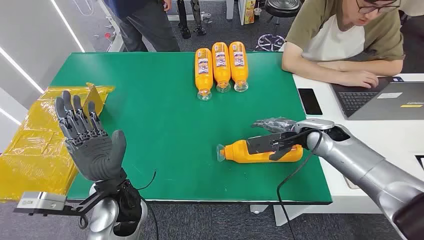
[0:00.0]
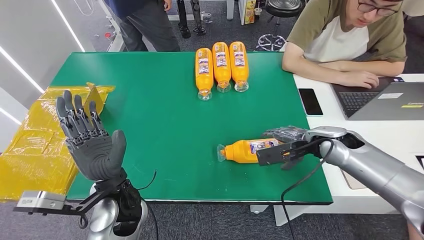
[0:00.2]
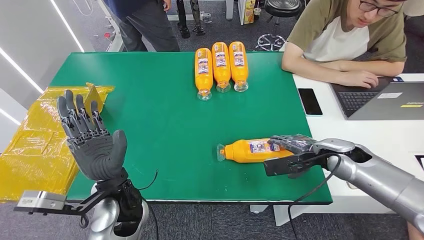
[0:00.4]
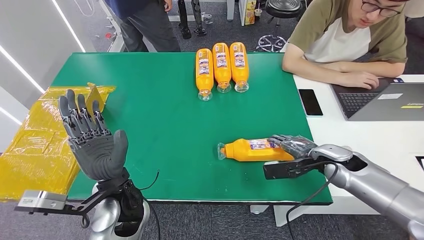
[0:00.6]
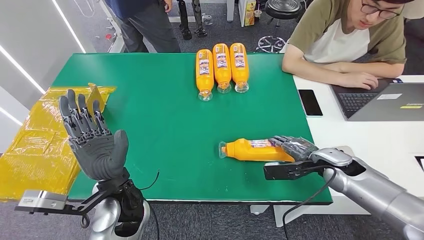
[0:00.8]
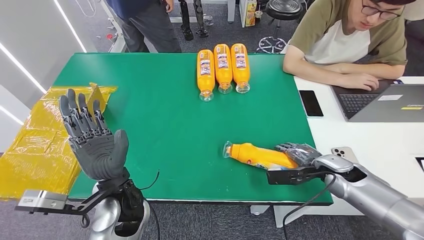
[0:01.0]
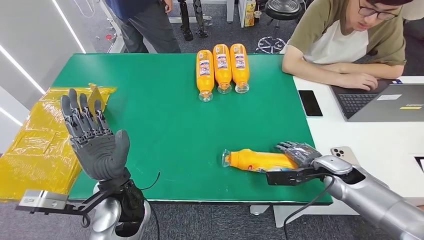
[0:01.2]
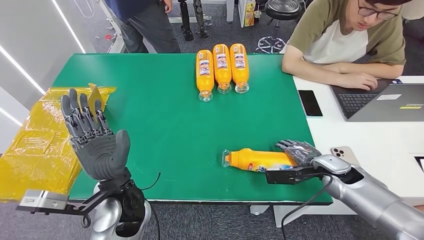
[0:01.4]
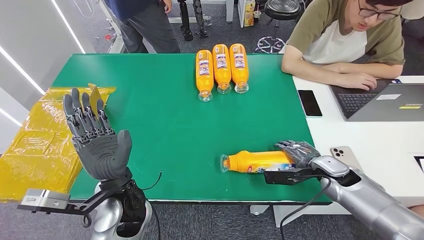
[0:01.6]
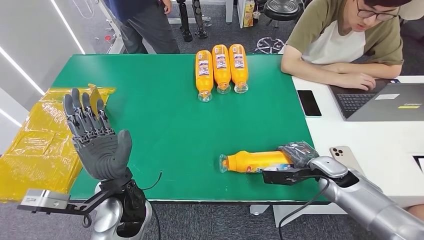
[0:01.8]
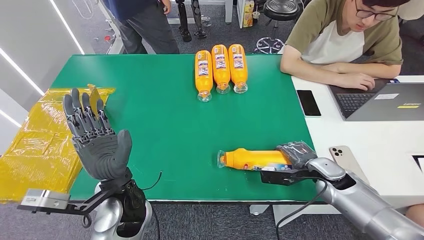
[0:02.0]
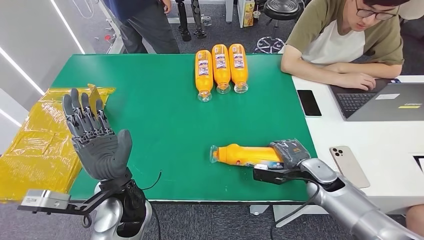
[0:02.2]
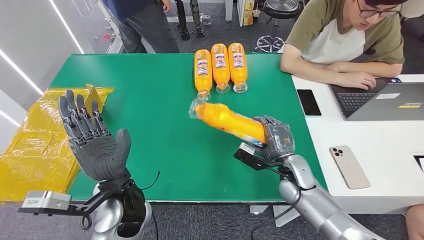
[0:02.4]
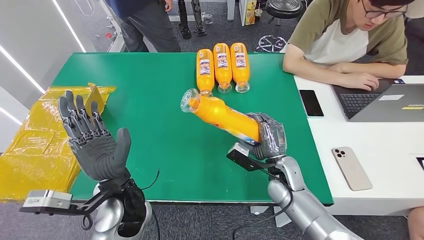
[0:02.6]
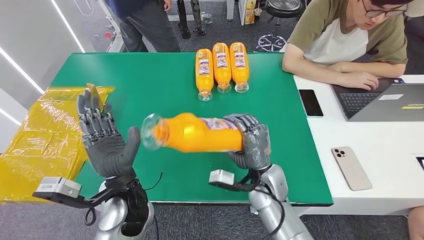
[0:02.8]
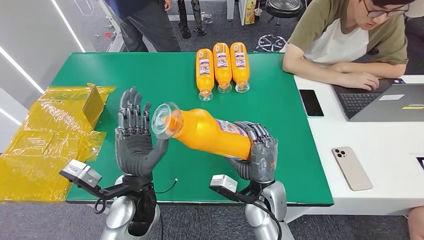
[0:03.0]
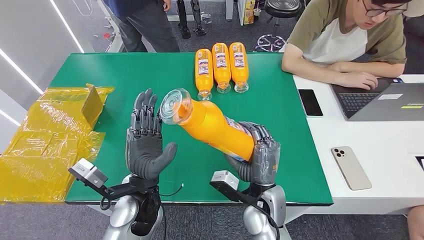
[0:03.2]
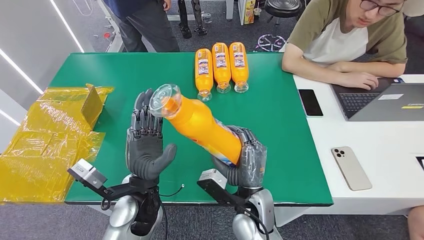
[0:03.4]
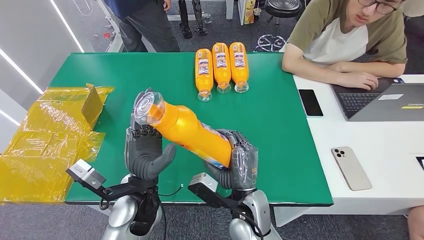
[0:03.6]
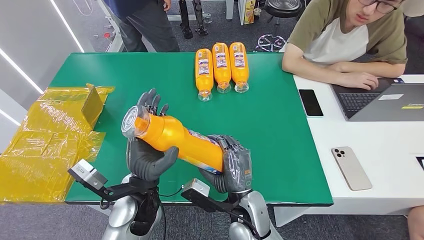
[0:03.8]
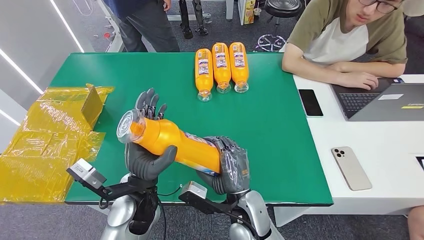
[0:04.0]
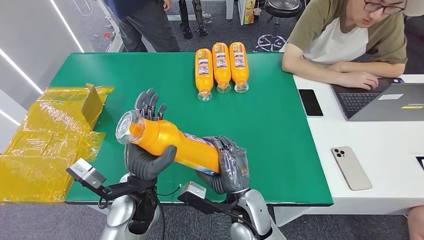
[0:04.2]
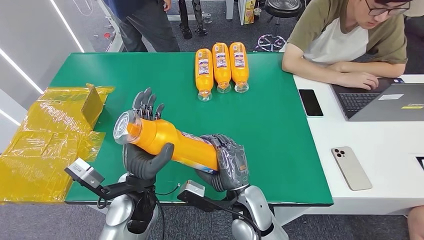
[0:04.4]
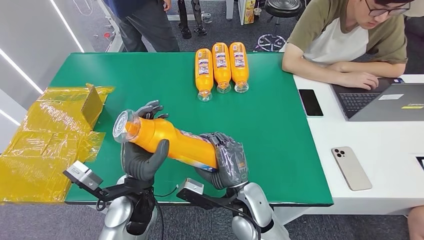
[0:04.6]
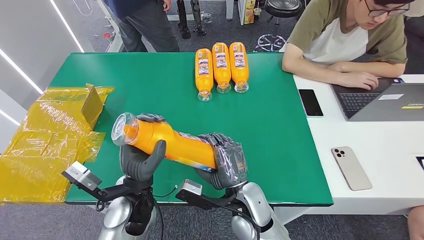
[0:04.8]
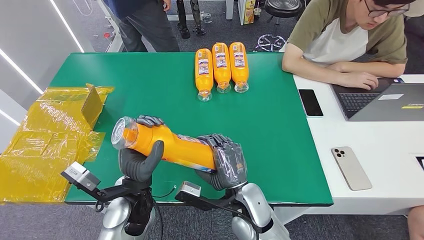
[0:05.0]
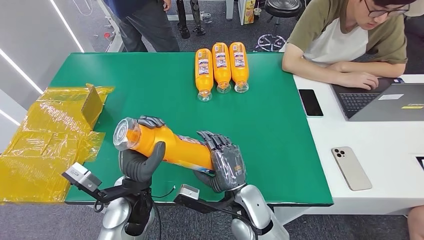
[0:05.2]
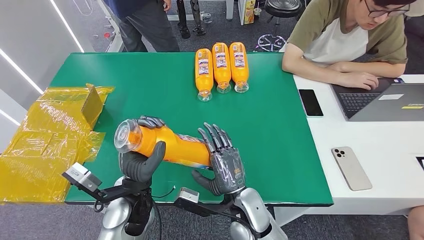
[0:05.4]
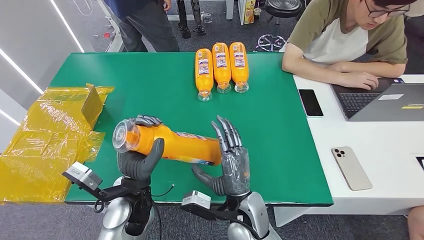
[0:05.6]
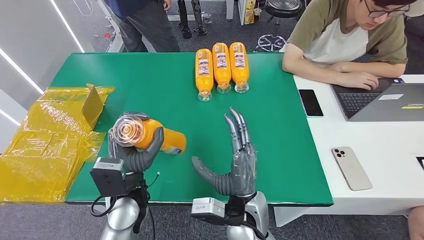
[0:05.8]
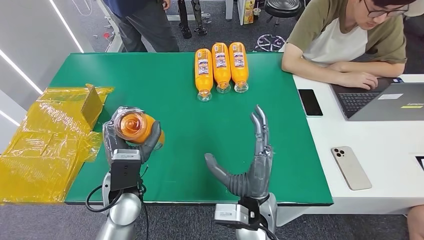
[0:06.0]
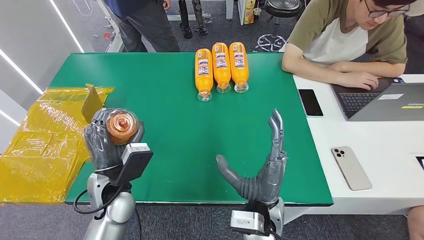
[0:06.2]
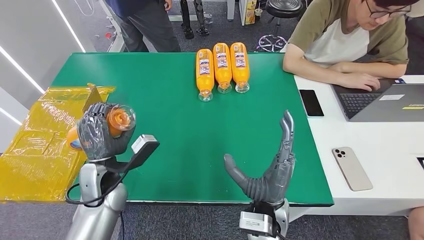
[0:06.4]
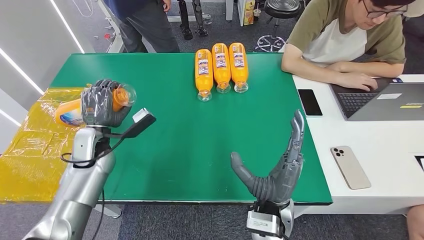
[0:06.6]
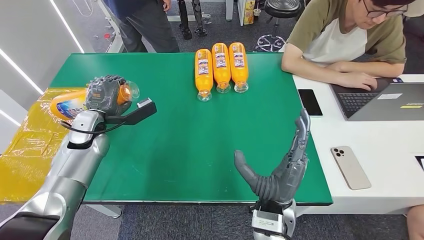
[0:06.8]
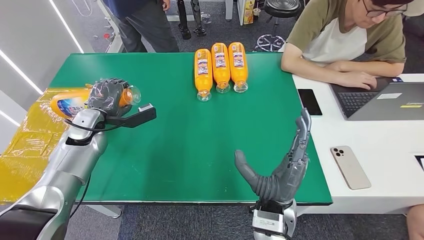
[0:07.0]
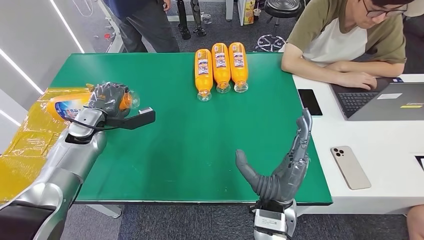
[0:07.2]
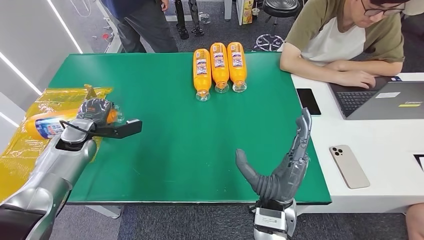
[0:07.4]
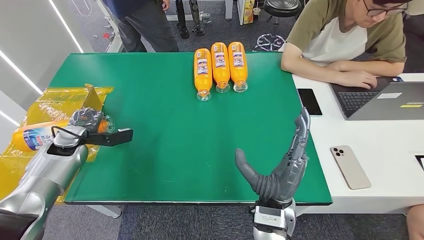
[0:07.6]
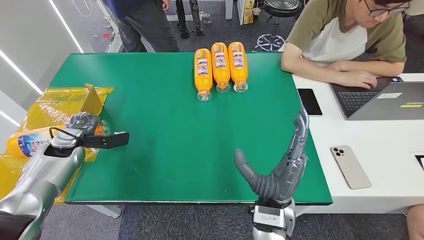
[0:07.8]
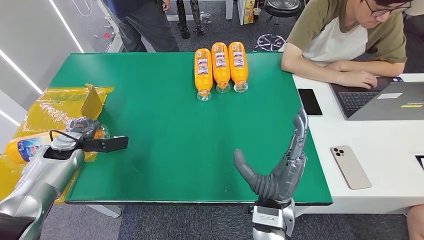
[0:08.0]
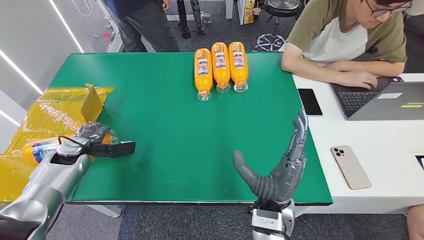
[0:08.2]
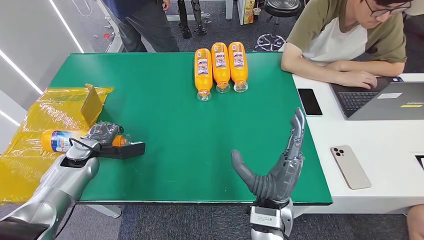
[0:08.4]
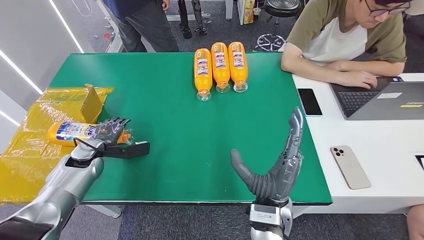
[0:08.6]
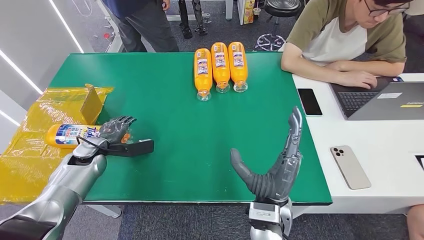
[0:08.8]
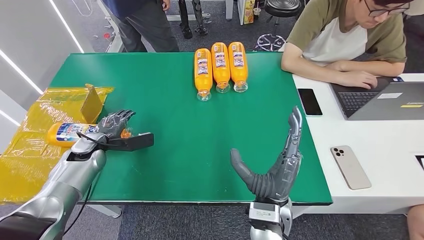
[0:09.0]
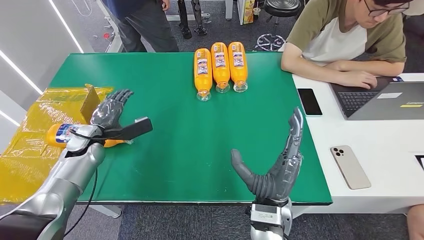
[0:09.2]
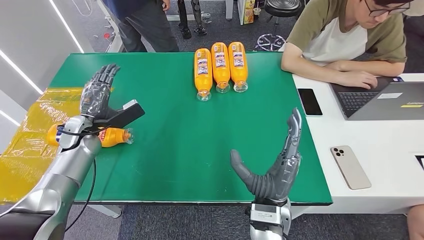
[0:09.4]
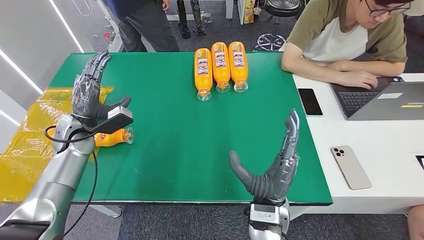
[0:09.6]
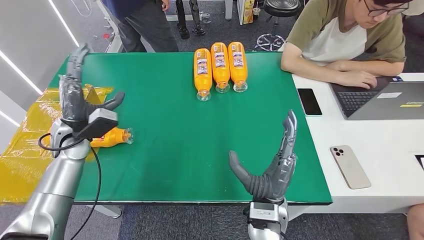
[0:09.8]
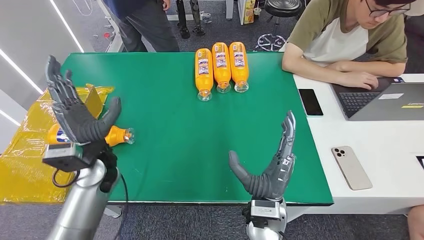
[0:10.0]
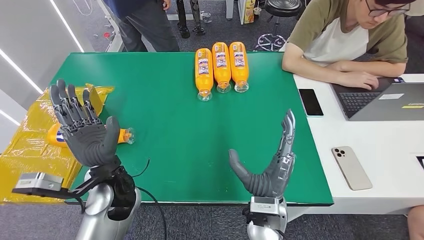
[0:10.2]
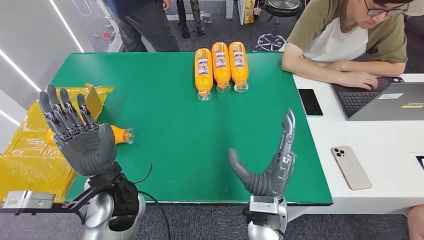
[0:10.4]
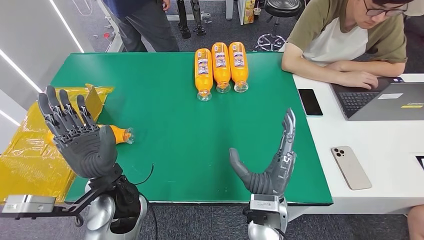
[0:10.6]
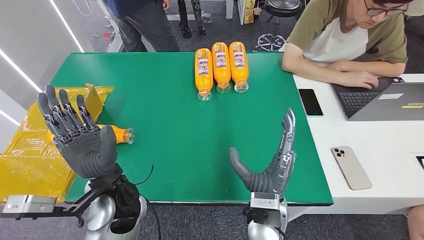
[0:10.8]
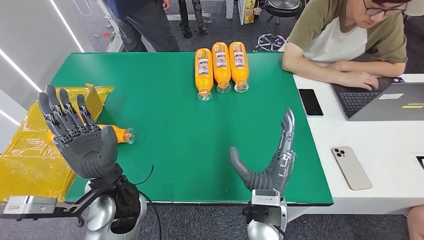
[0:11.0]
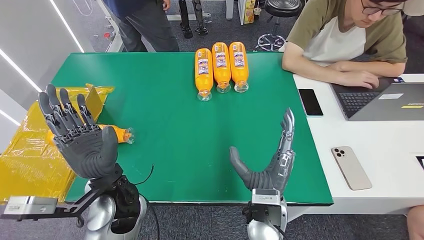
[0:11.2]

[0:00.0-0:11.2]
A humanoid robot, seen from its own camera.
Step, 0:00.0 to 0:03.4: Pick up the bottle from the table.
Step, 0:03.6 to 0:11.2: Turn the bottle to the front side.
0:04.8 to 0:06.4: The left hand moves to the left and forward, approximately 10 cm.
0:08.0 to 0:09.6: The left hand is displaced to the right by some 10 cm.
0:09.6 to 0:11.2: The left hand travels to the right and backward by approximately 25 cm.
